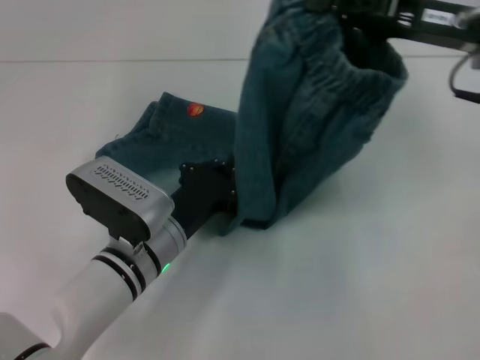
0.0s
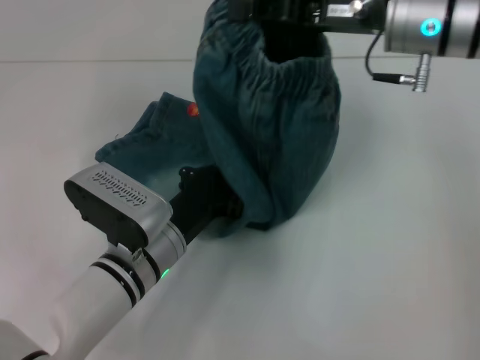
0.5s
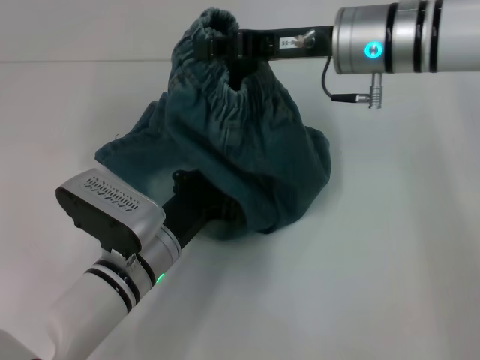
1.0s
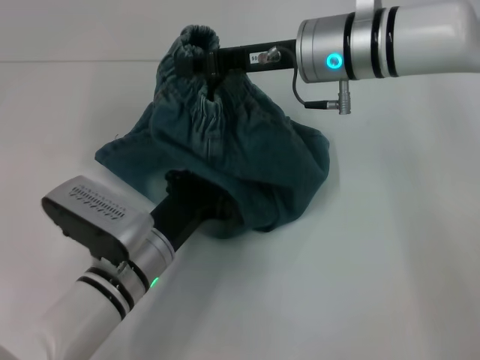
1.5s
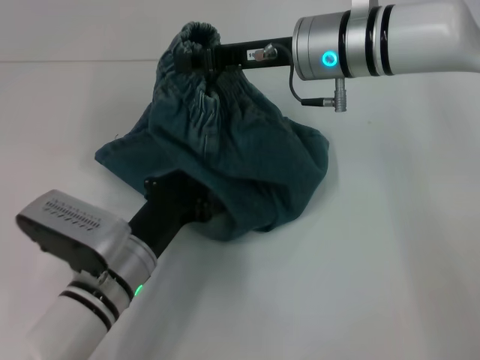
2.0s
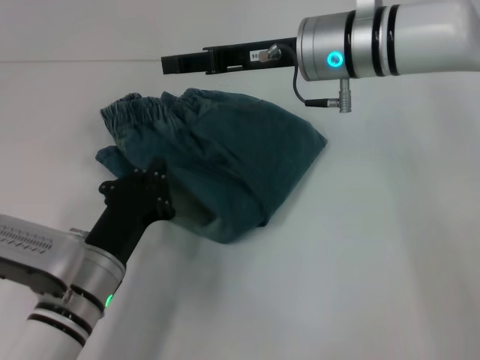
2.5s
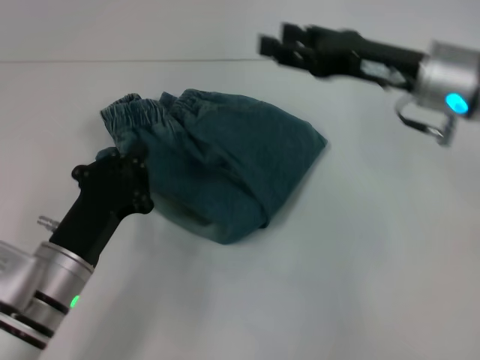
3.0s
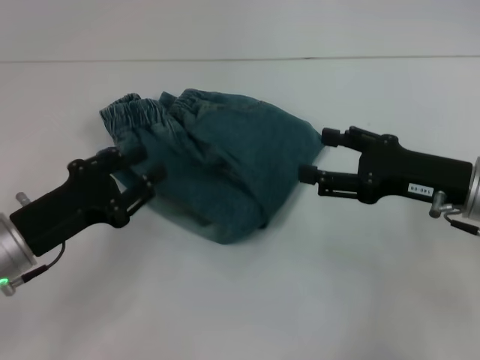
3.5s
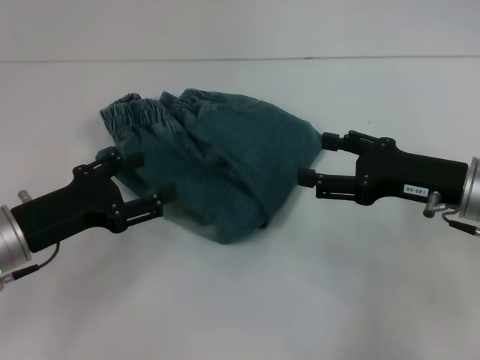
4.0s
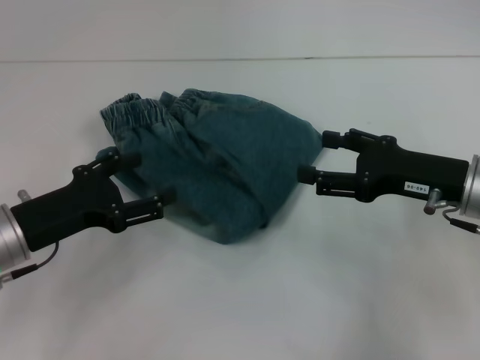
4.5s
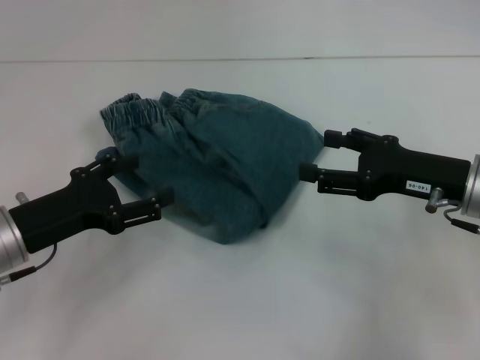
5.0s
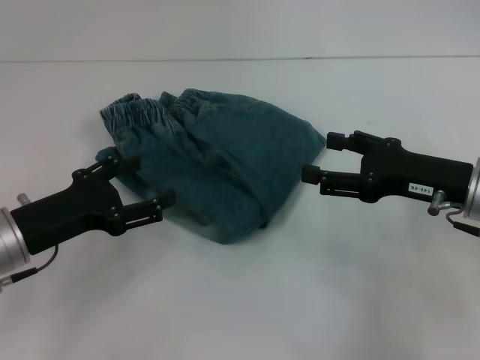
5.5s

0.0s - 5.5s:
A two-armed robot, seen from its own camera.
Step, 2.0s - 2.5s: Fold to the left with your right hand.
0.0s - 2.0s: The right gripper travels to the left by some 15 cm.
2.0s - 3.5s: The right gripper is displaced to the right, backward and downward by some 20 cm, and opens its fingers. Meanwhile the left gripper travels to the left and upward by about 15 cm.
3.5s - 5.5s: The left gripper opens its fingers.

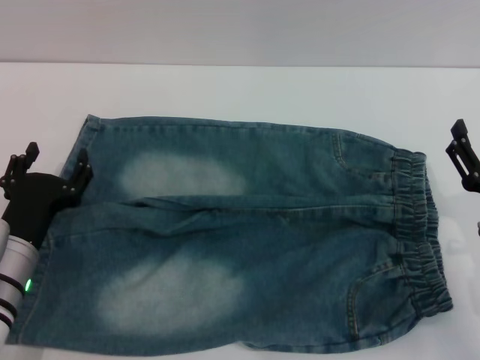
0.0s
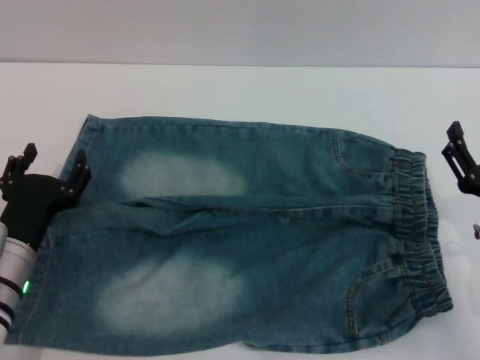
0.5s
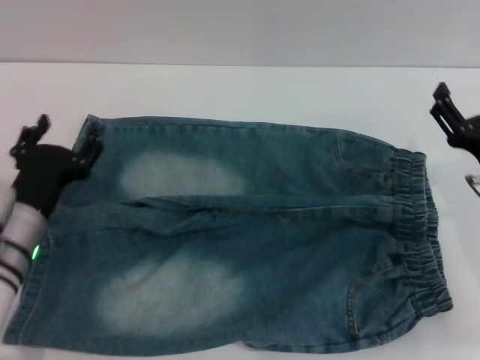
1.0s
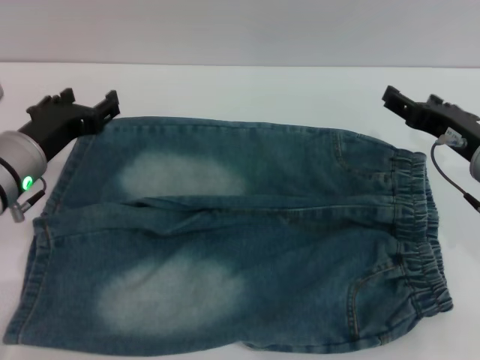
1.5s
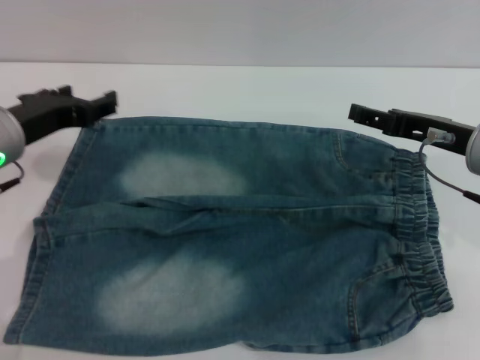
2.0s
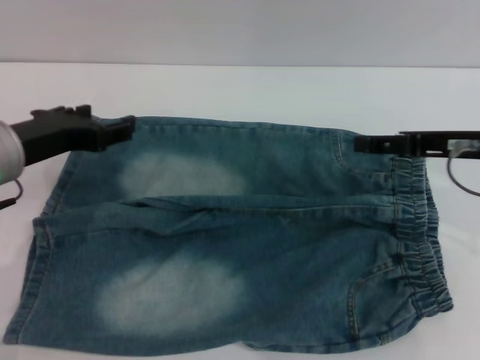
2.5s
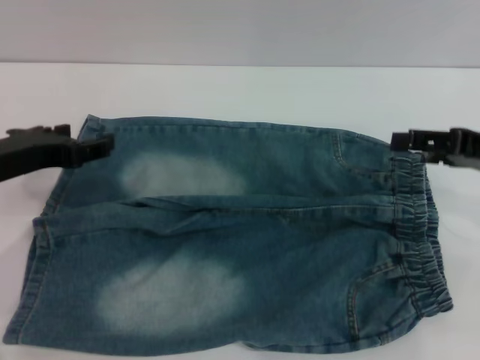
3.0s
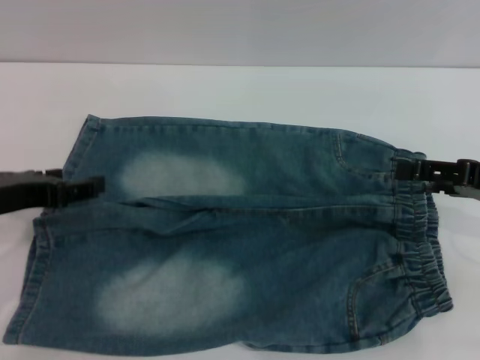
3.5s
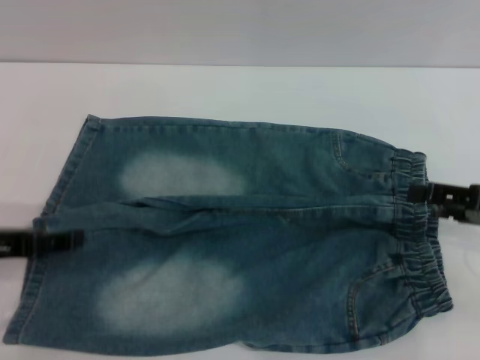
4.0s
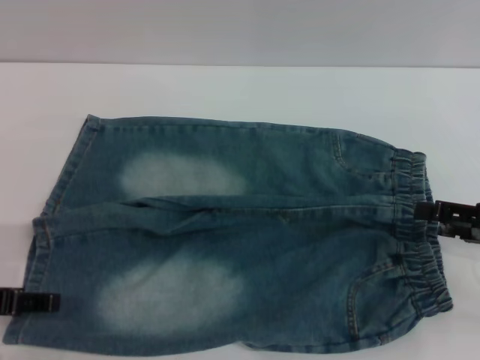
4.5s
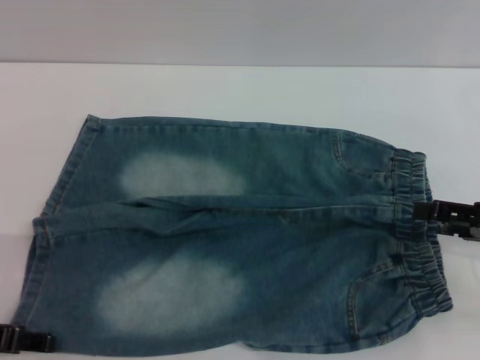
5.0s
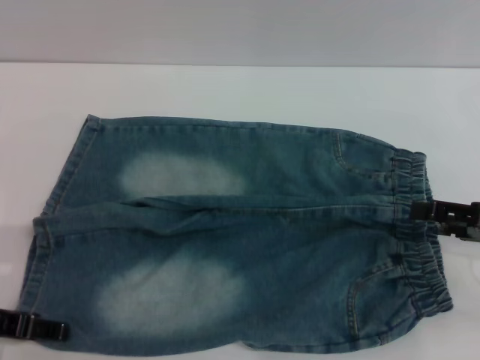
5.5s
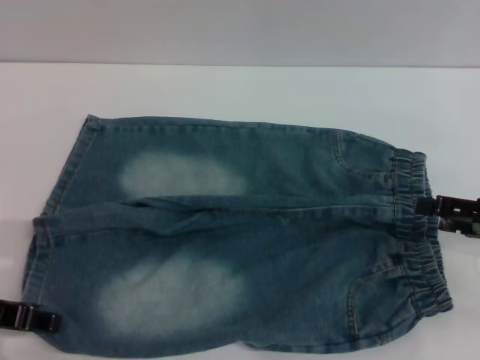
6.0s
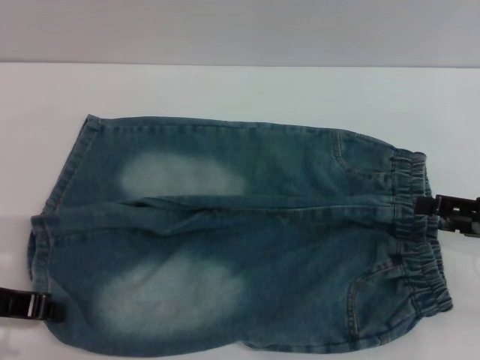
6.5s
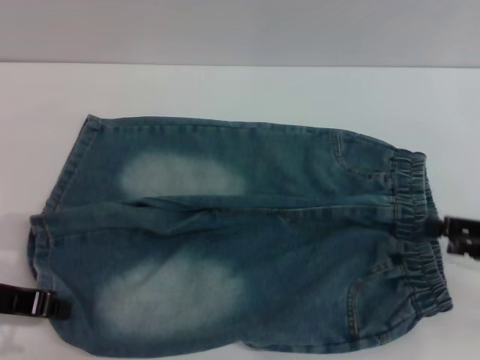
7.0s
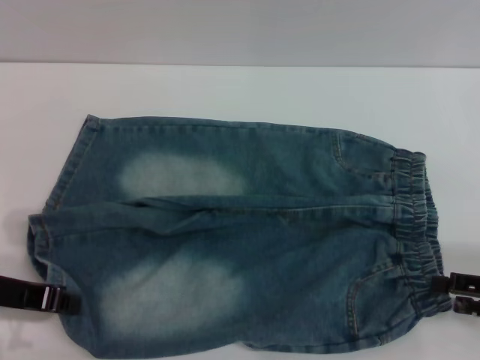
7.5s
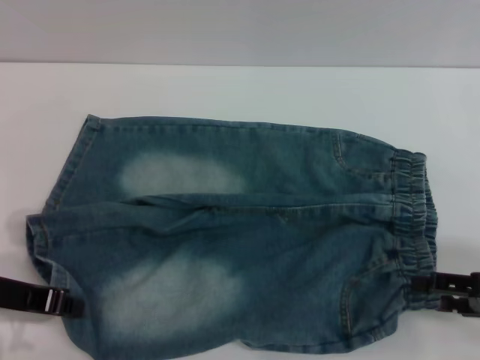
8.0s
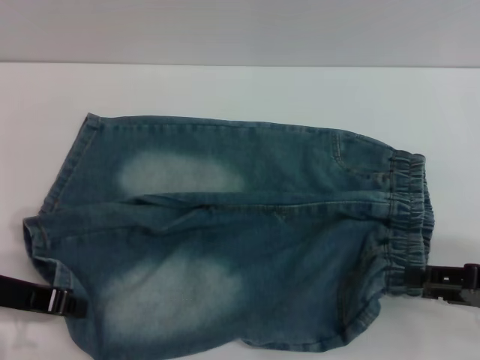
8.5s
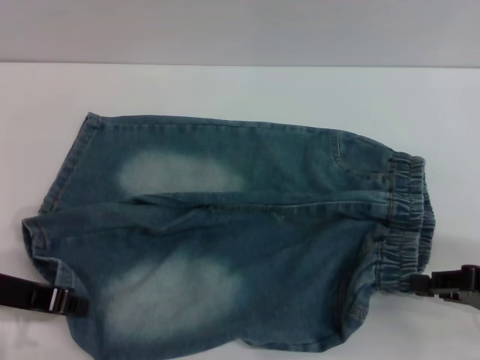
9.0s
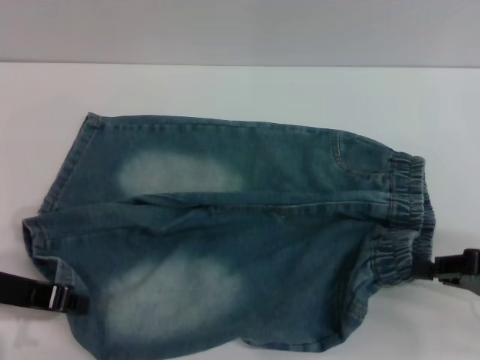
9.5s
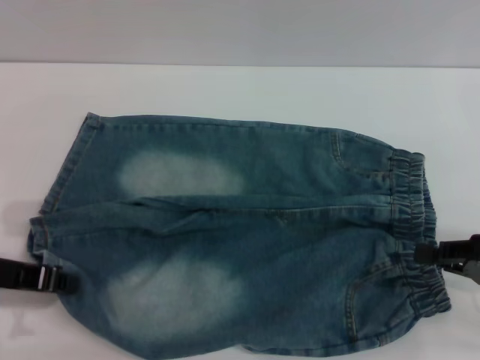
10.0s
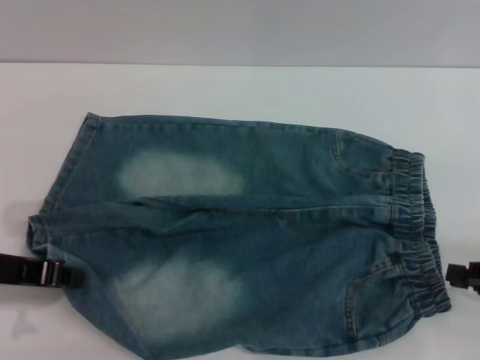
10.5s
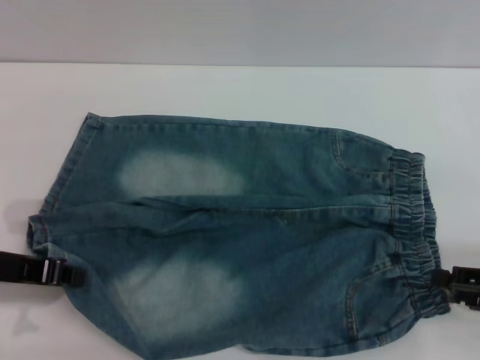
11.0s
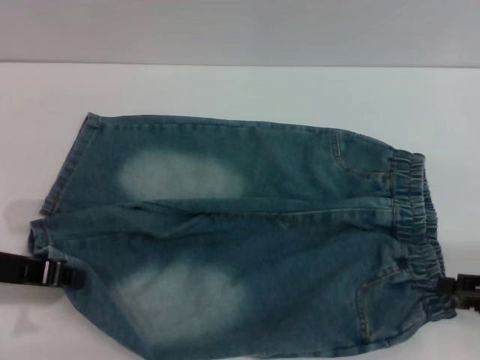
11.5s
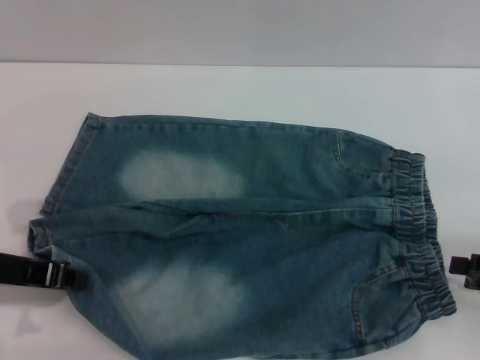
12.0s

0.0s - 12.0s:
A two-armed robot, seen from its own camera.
0.0s - 2.0s: Both grippers travel together upward and forward, some 15 cm.
2.0s - 4.0s: The right gripper shifts roughly 10 cm to the right and backward; the left gripper is displaced backward by approximately 10 cm.
6.0s - 8.0s: The left gripper closes; the right gripper moves about 5 cm.
8.0s - 10.0s: The right gripper closes its fingers.
10.0s - 12.0s: The right gripper opens up.

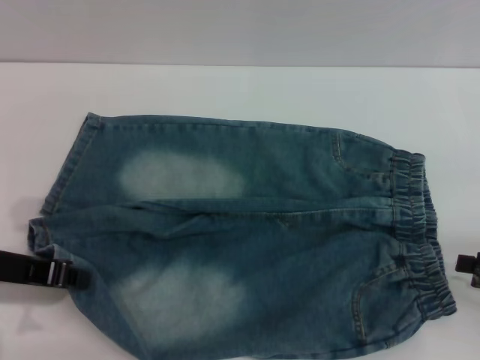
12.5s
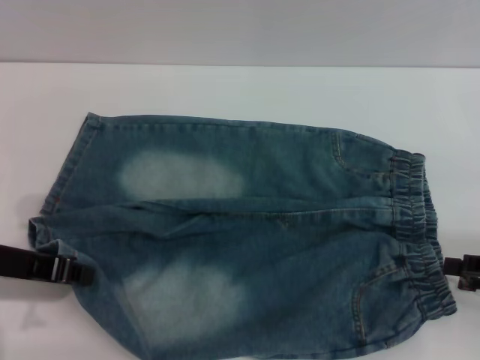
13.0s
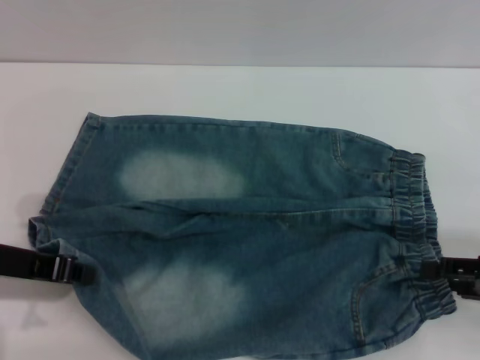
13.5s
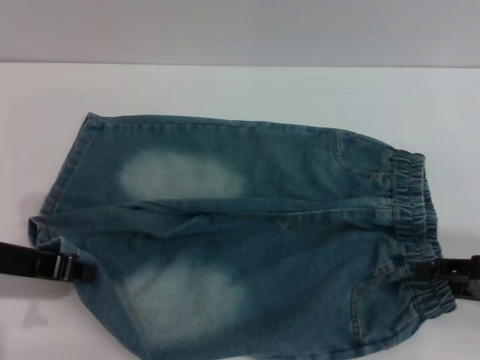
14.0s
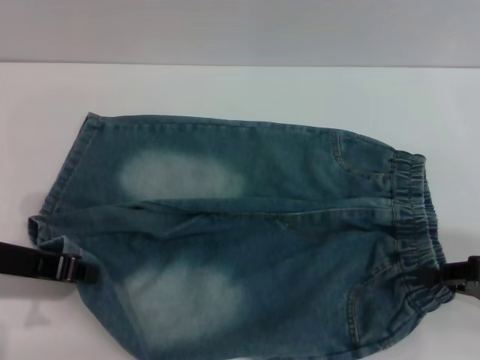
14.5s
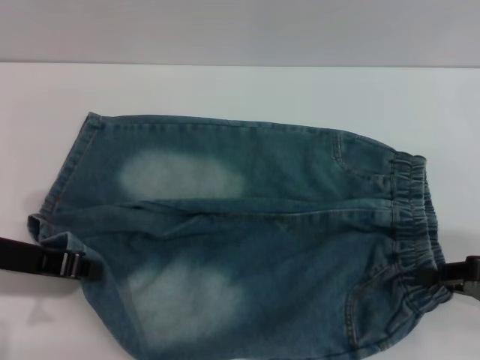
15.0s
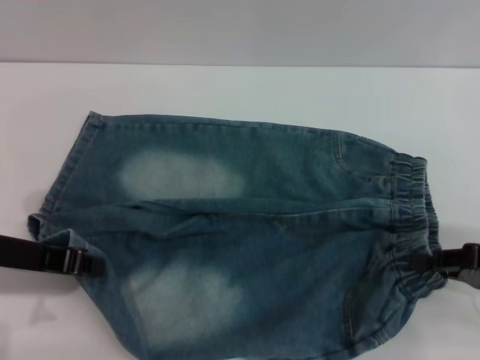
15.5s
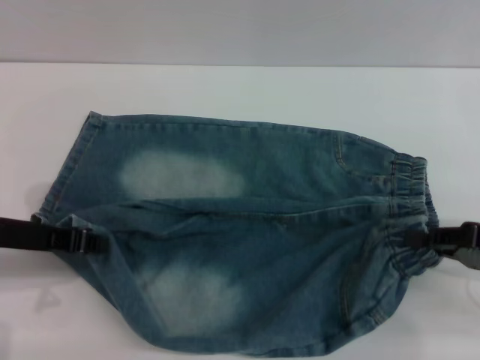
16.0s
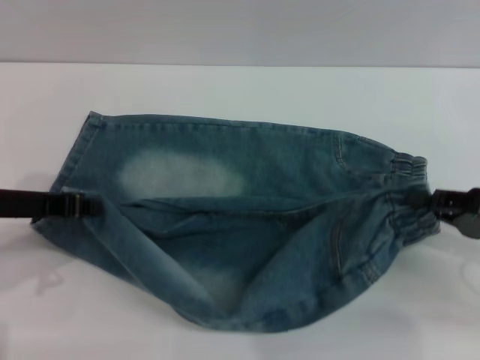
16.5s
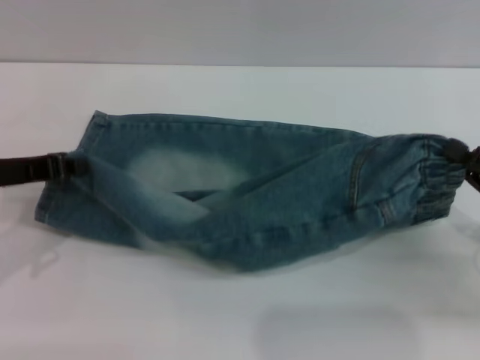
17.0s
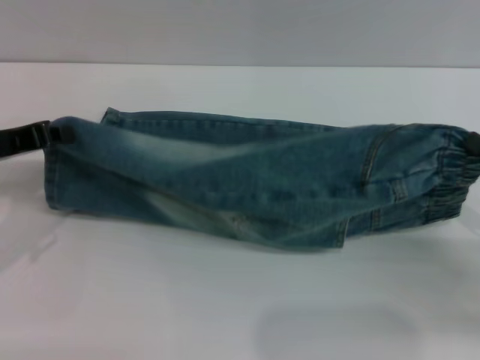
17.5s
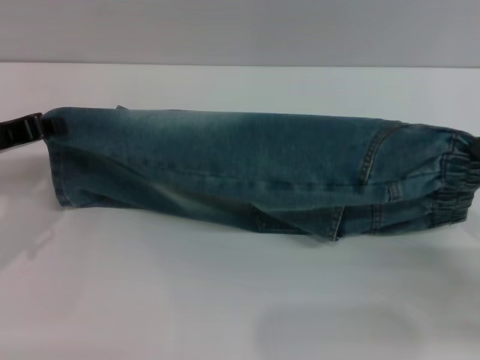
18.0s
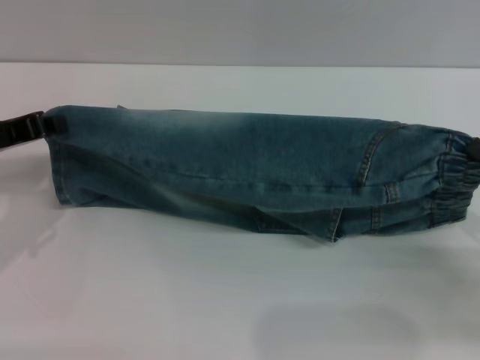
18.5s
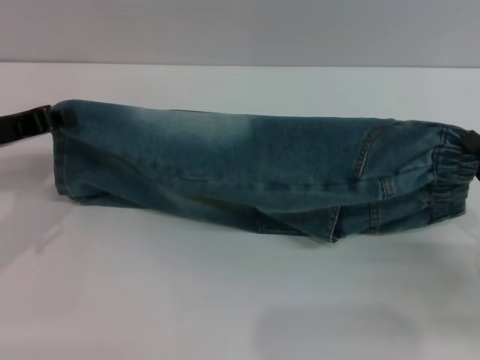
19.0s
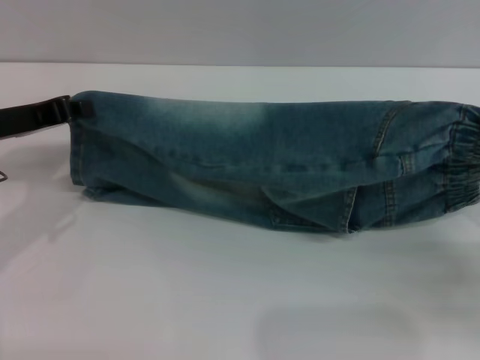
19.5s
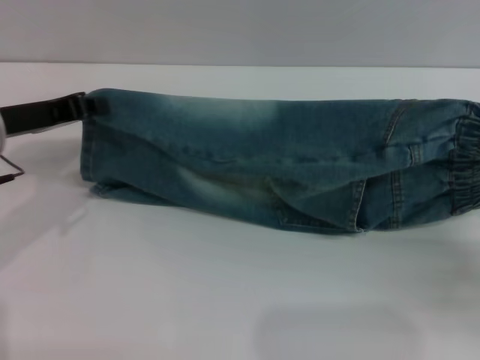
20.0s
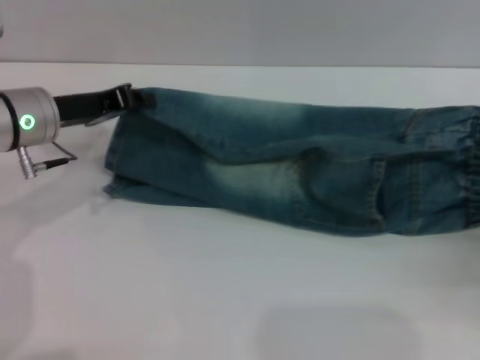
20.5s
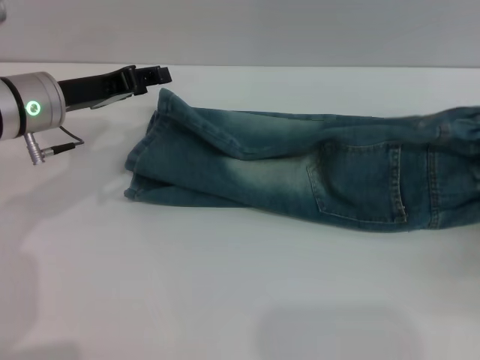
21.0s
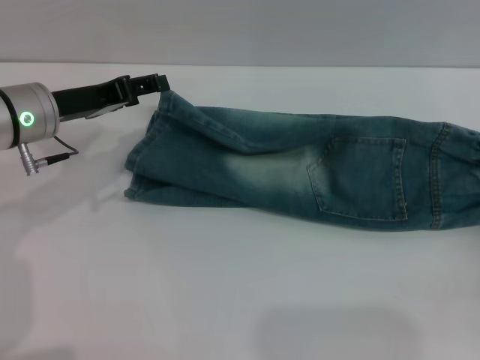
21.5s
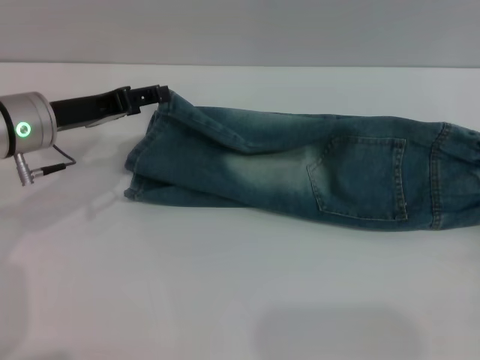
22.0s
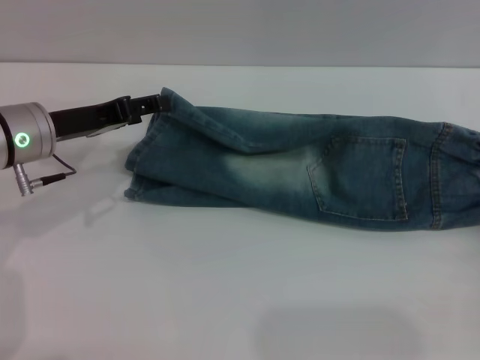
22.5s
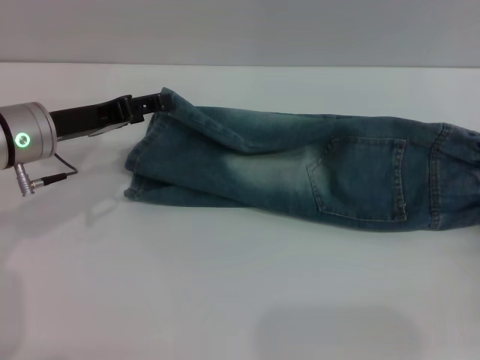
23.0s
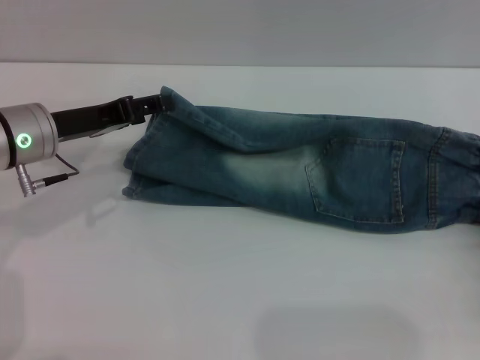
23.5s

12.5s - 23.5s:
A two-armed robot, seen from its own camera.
Step, 12.5s - 21.5s: Fold the bottom of the pants upward with both grippers.
12.5s - 14.5s: The right gripper closes.
14.5s - 16.0s: There are only small adjustments of the grippers.
16.0s - 18.0s: The left gripper changes place by some 5 cm.
18.0s - 20.0s: The grippers make only small movements.
20.0s - 21.5s: The right gripper moves some 5 cm, and opens; the left gripper shifts by some 5 cm, and opens its fingers.
21.5s - 23.5s: There are only small adjustments of the grippers.
